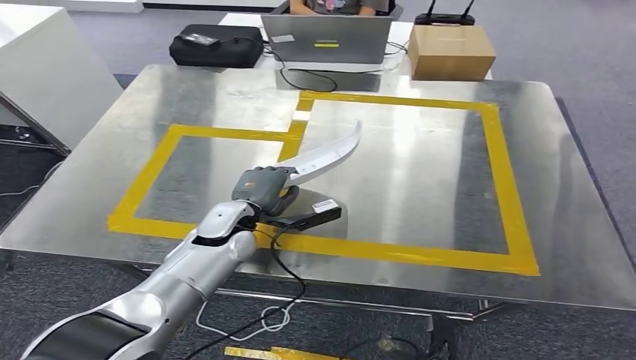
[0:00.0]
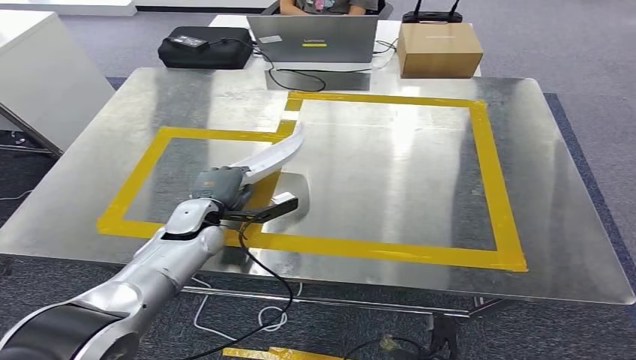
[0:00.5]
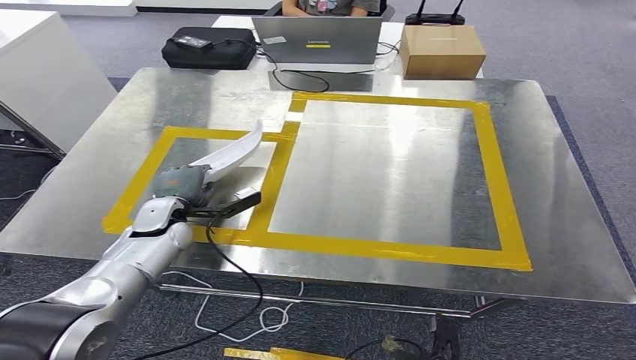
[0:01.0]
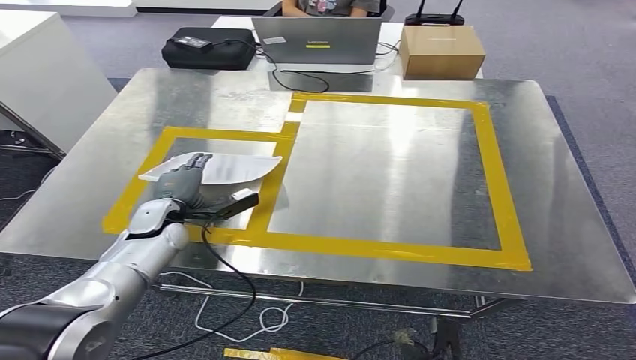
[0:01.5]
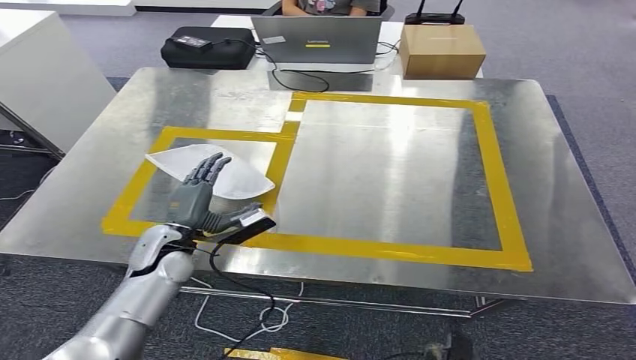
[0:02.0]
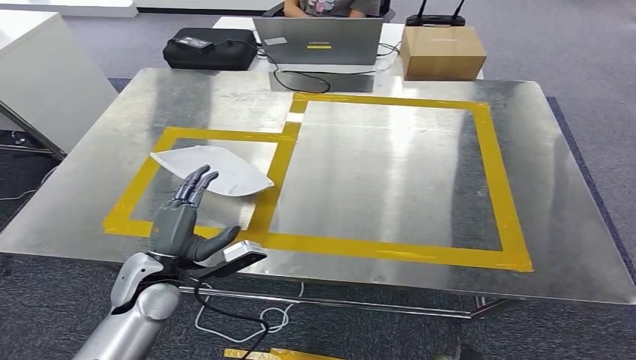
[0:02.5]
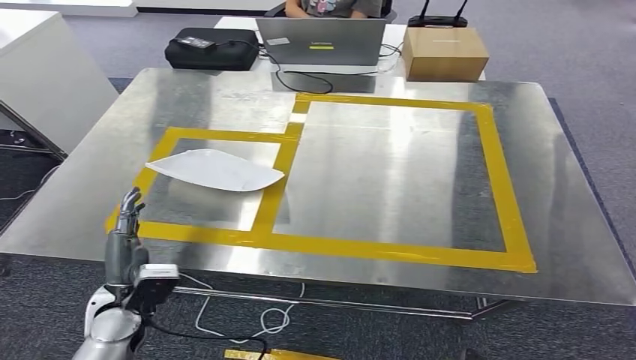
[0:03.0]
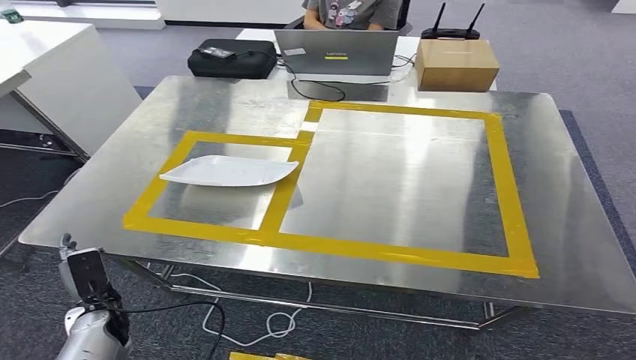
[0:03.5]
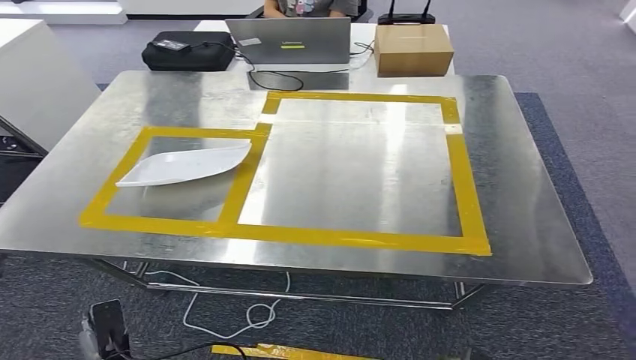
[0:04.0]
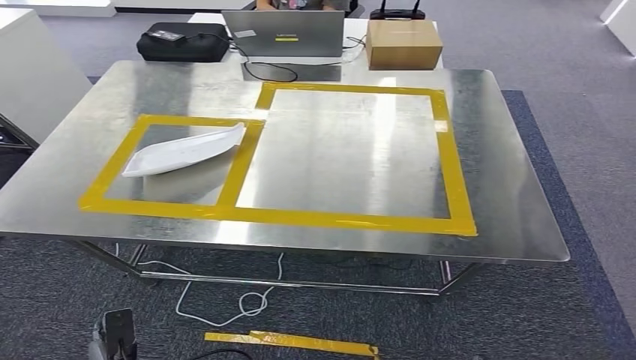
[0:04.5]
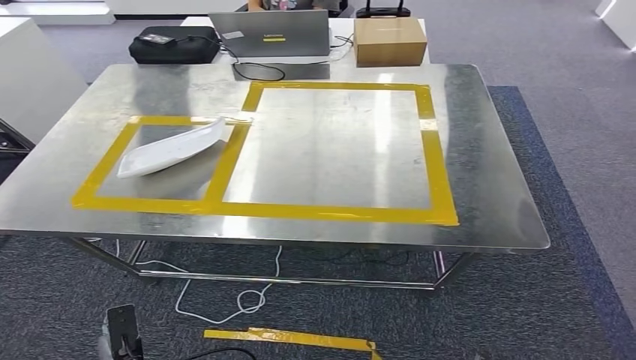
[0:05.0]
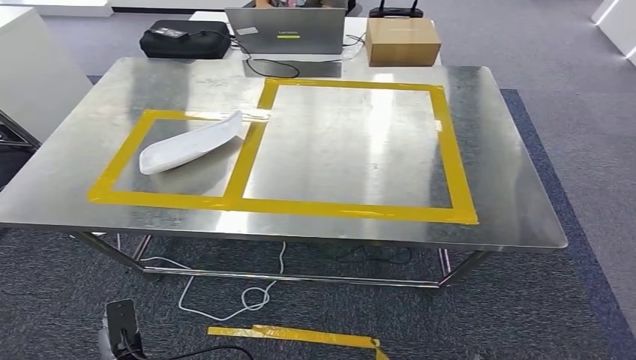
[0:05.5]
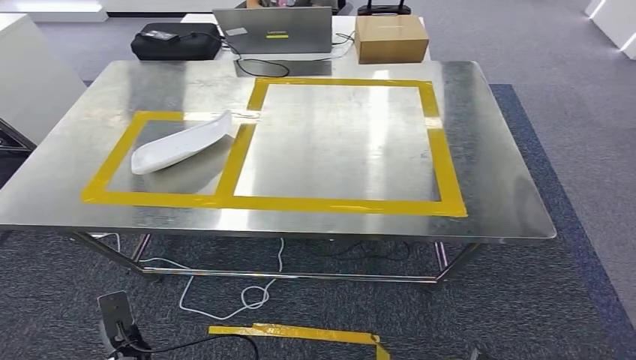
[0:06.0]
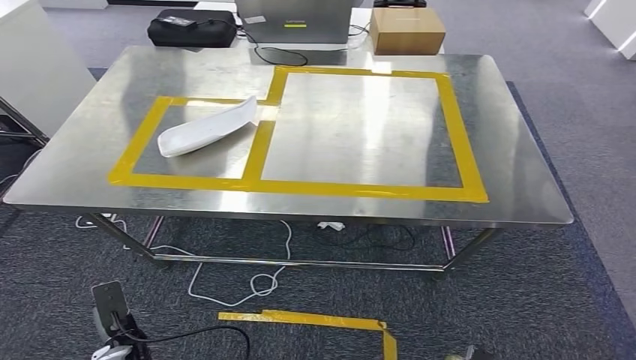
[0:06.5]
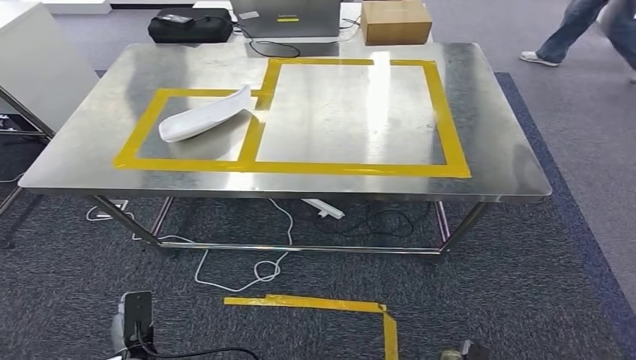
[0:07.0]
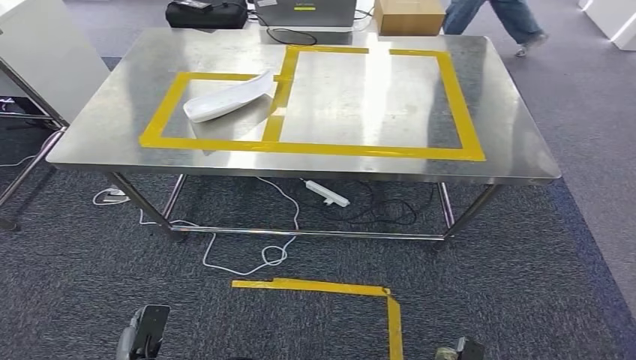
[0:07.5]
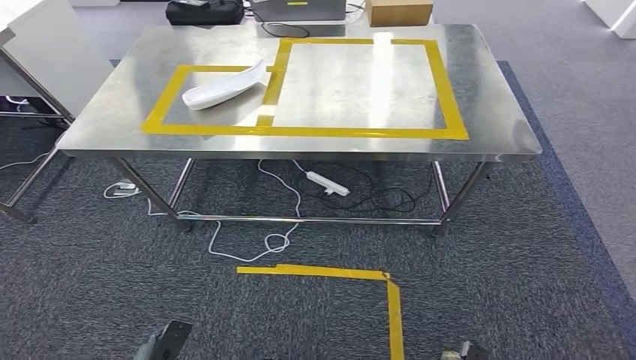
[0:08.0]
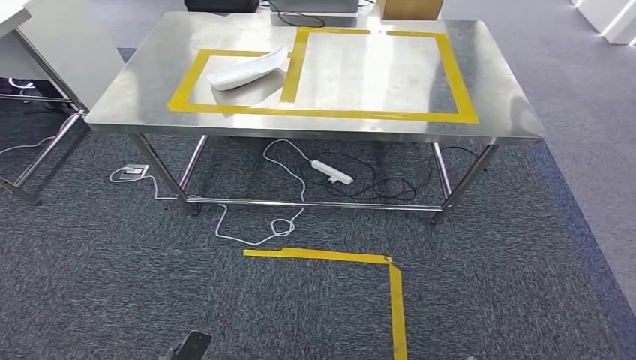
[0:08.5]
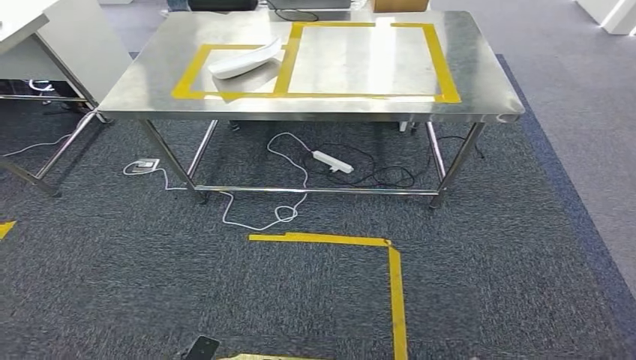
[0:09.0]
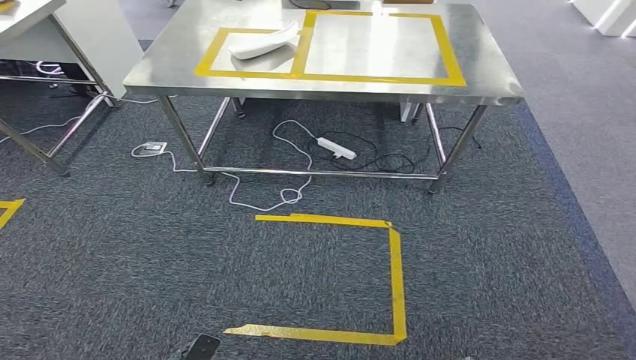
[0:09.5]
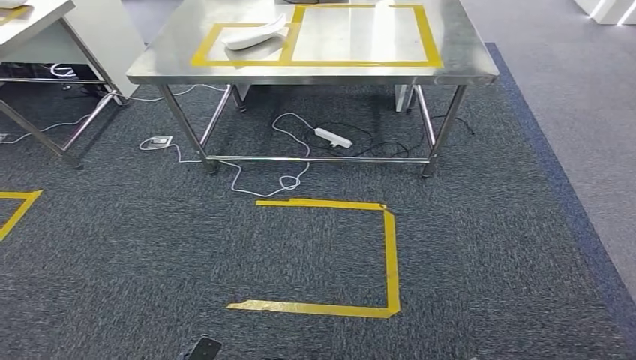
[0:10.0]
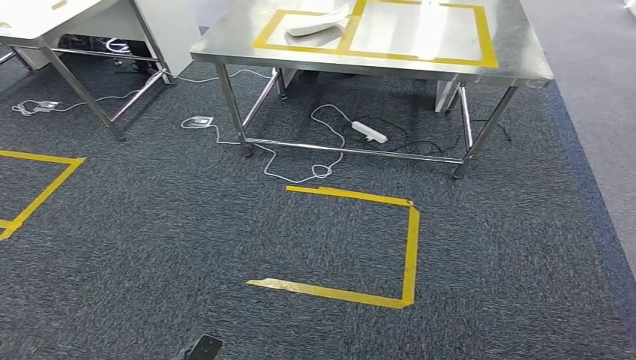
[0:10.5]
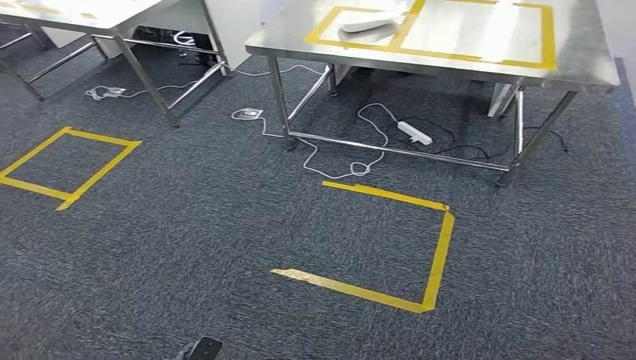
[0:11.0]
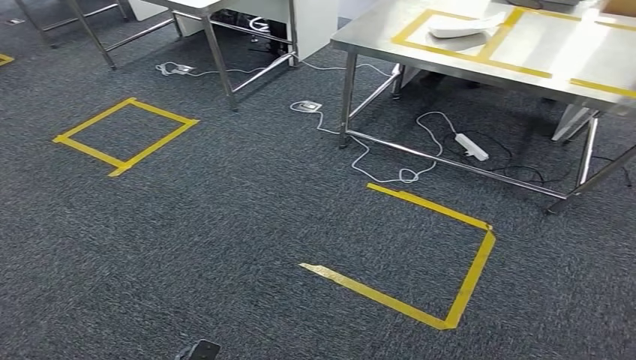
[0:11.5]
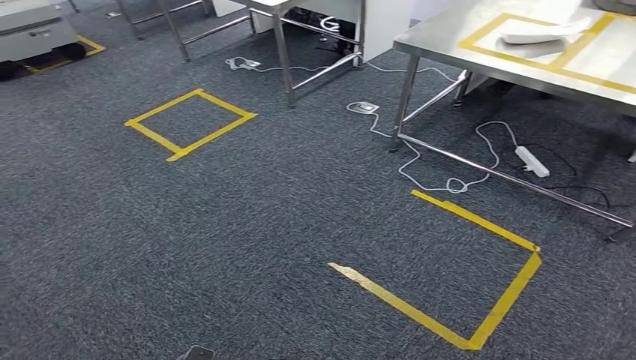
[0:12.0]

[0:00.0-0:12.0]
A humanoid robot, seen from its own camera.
Step, 0:00.0 to 0:05.0: Insert the small parts into the corresponding holes on the workbench.

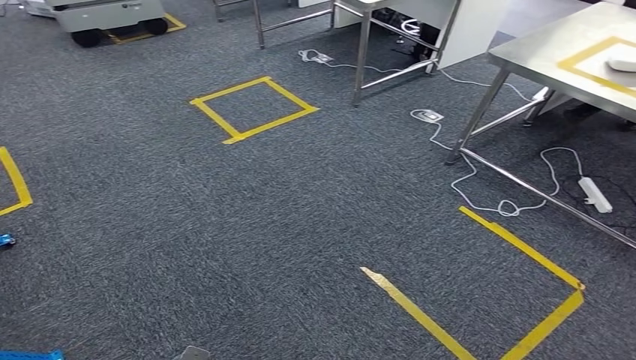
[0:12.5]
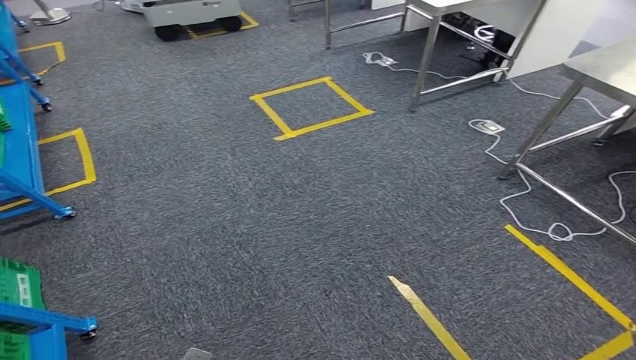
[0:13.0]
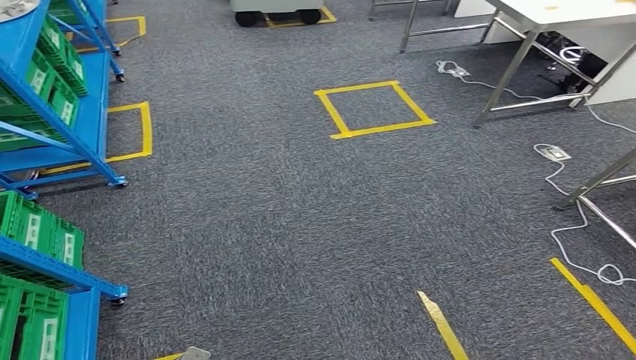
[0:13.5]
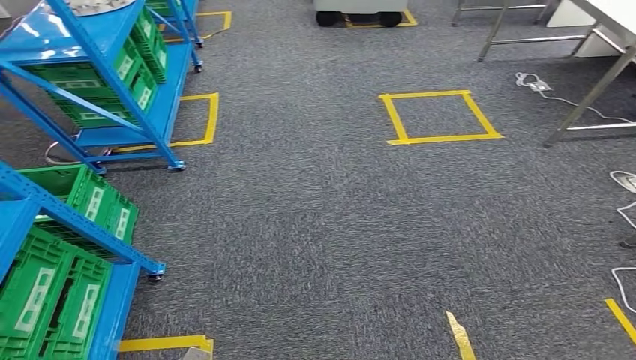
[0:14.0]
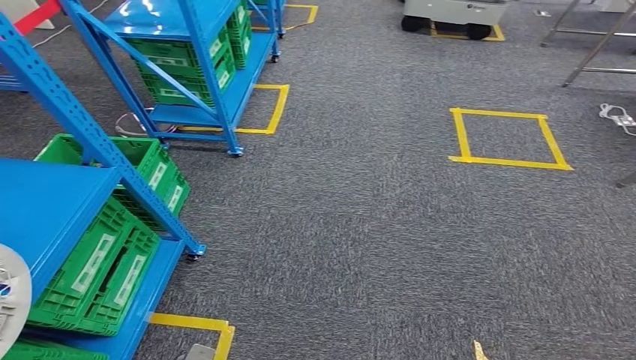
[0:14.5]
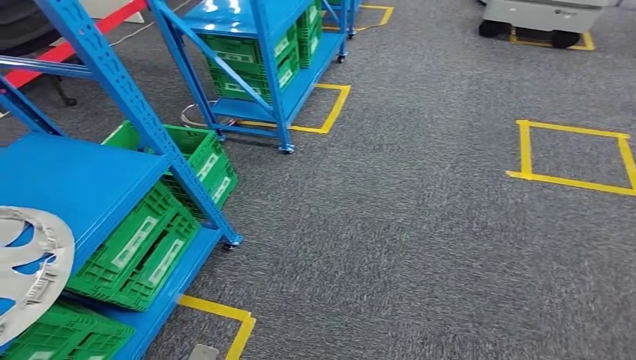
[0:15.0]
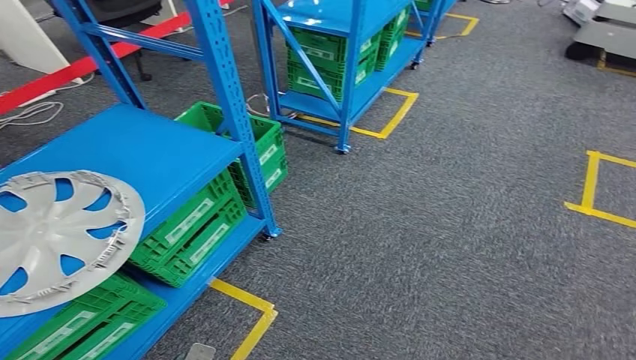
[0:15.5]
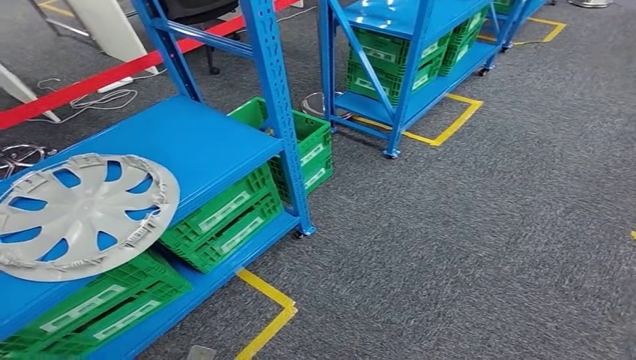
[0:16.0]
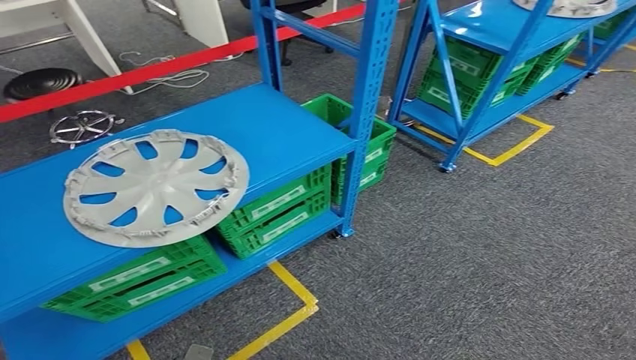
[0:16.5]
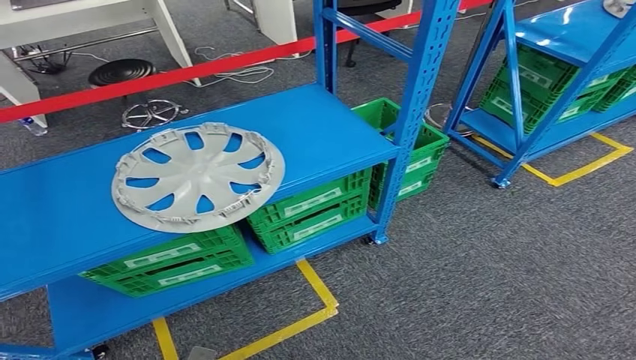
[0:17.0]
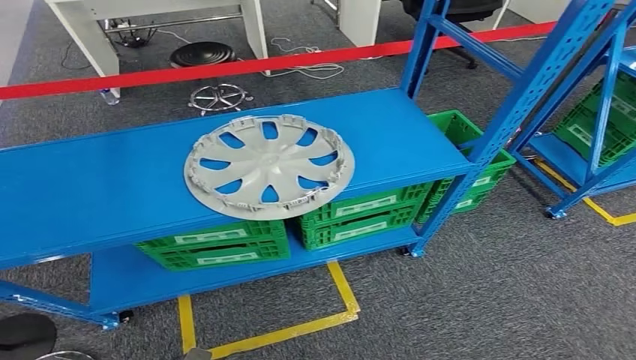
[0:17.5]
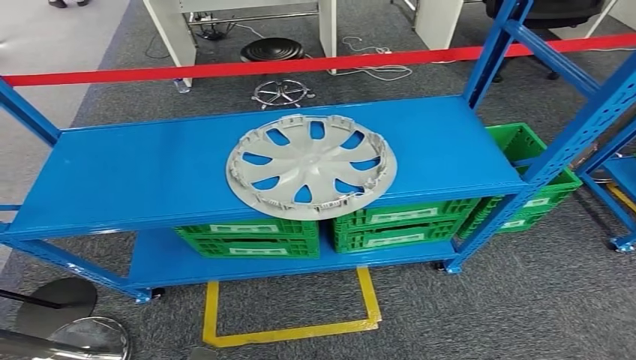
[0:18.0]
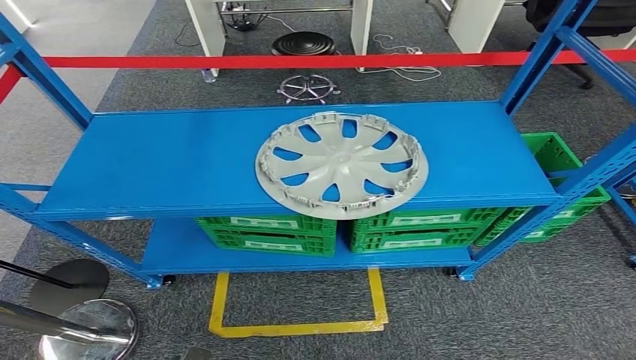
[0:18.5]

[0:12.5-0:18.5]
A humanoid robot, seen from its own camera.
Step, 0:12.5 to 0:18.5: Move to the initial position of the workbench.

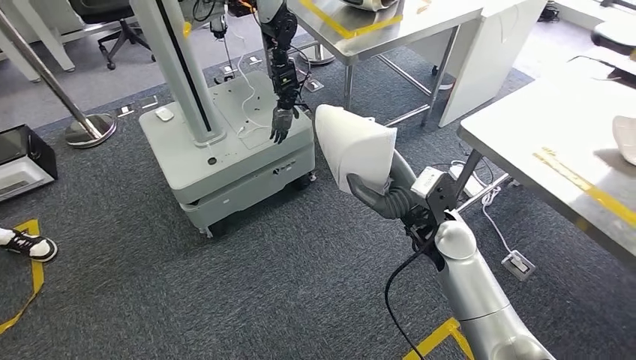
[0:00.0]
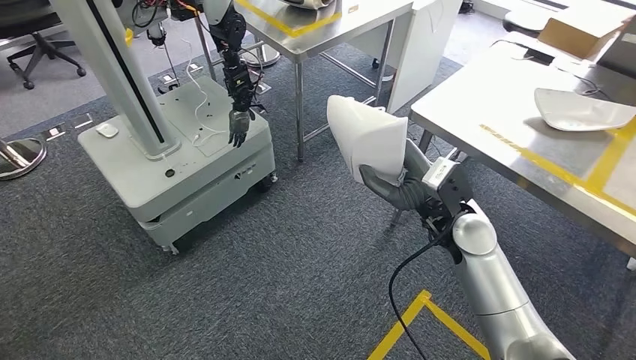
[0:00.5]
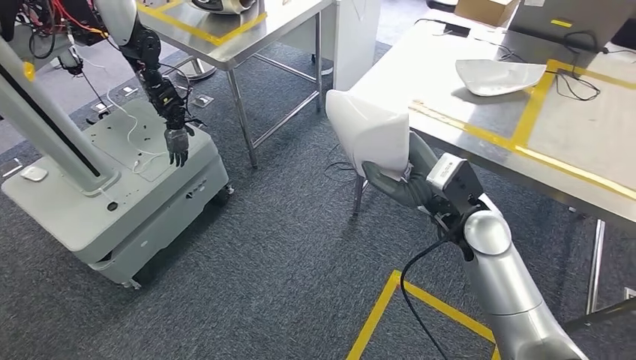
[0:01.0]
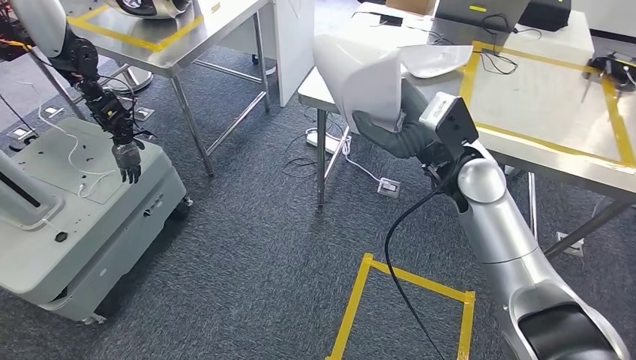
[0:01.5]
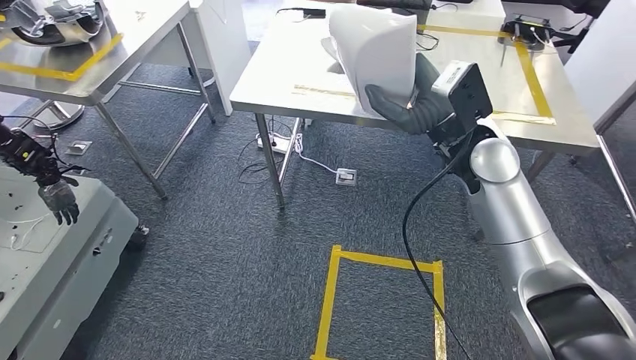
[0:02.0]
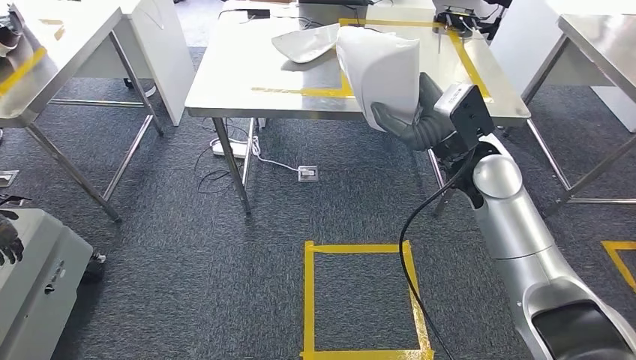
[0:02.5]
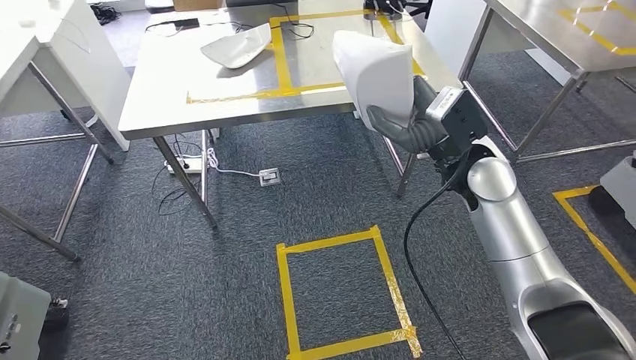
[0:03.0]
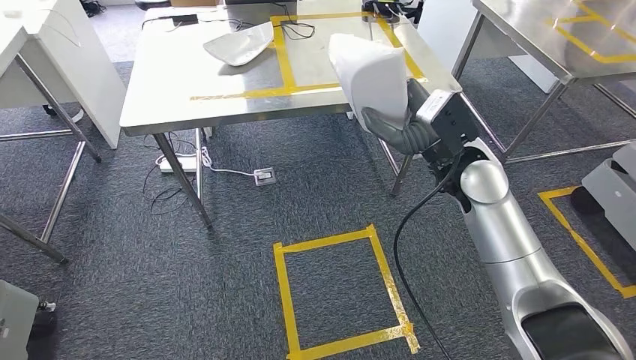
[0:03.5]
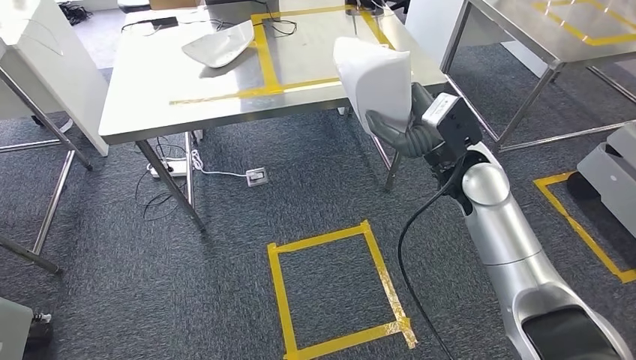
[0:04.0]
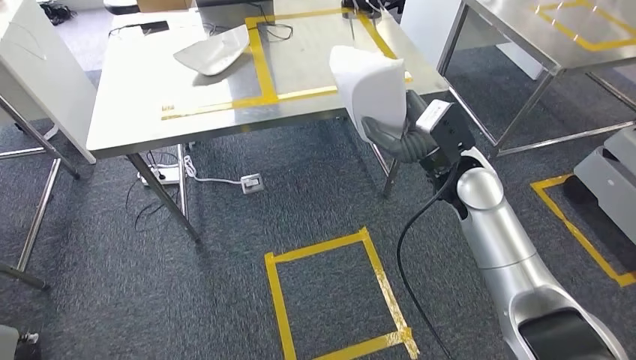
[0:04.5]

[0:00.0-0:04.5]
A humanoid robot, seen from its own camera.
Step, 0:00.0 to 0:03.0: Move the small parts to the workbench.
